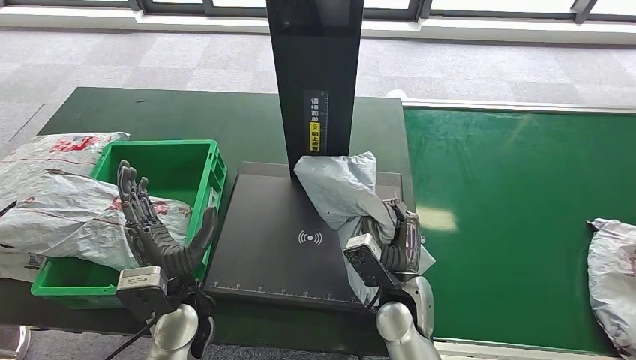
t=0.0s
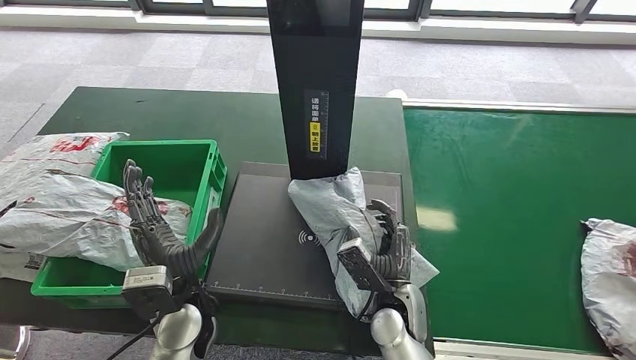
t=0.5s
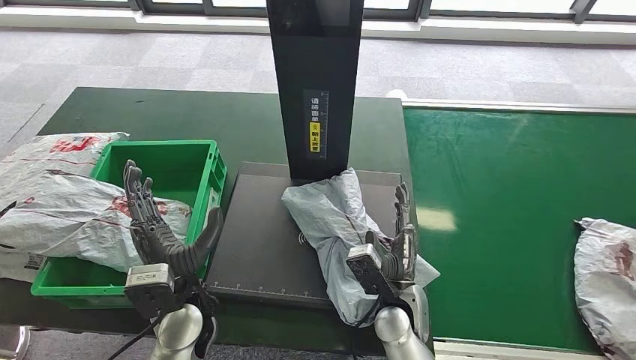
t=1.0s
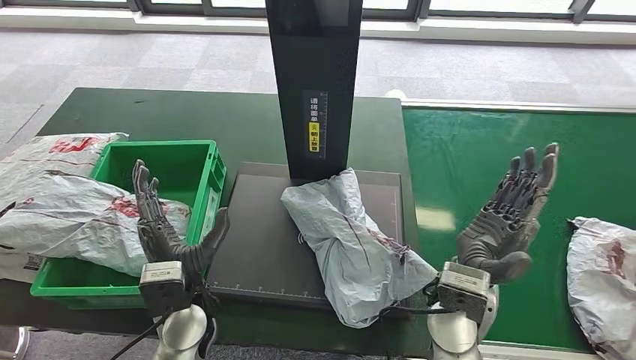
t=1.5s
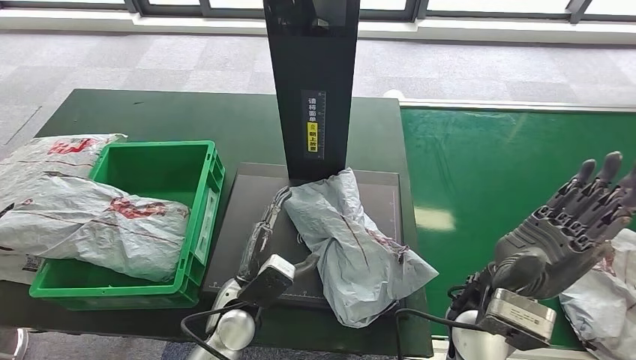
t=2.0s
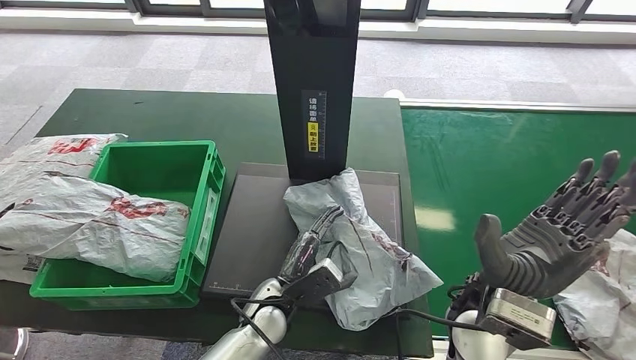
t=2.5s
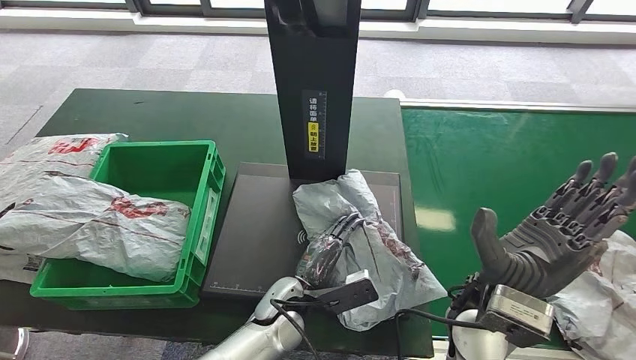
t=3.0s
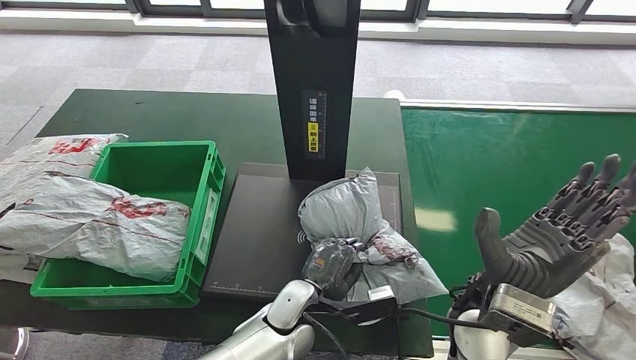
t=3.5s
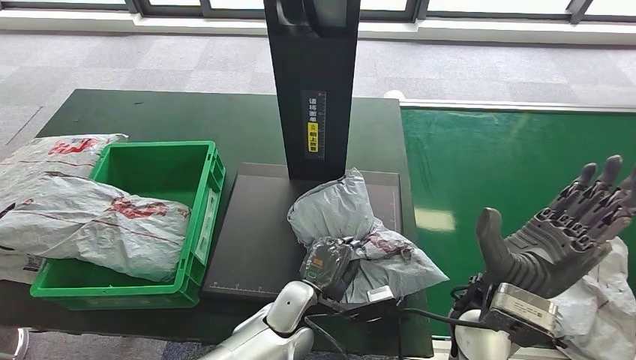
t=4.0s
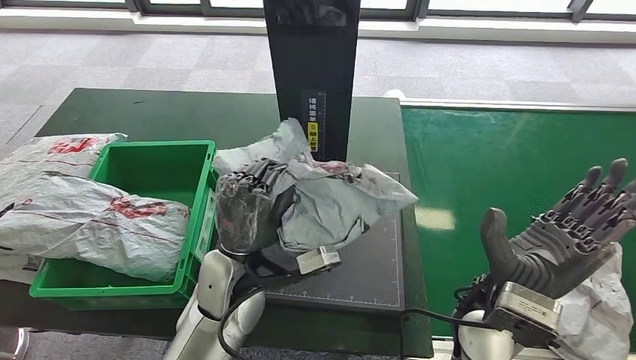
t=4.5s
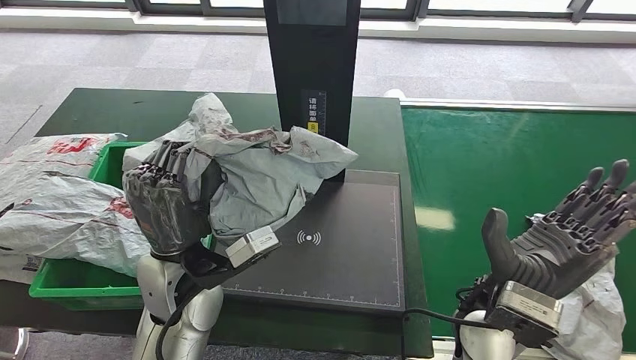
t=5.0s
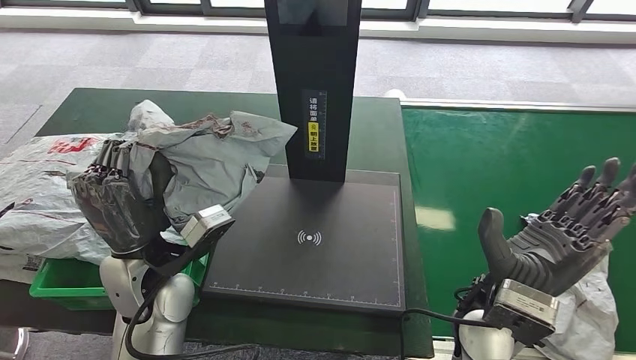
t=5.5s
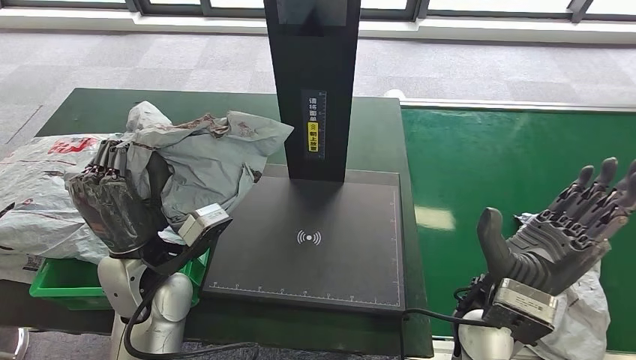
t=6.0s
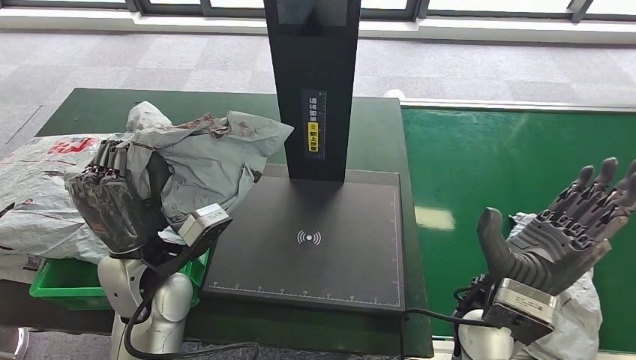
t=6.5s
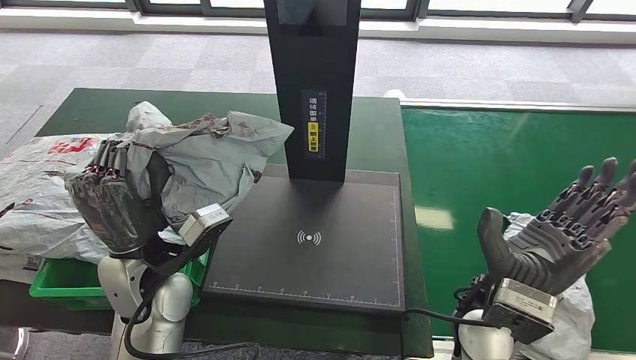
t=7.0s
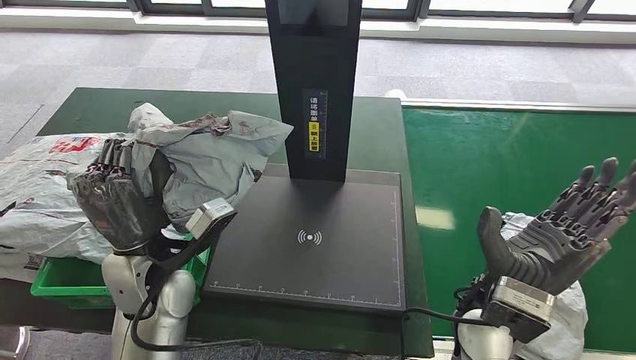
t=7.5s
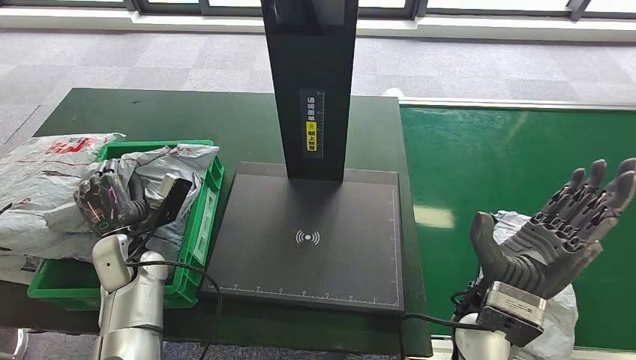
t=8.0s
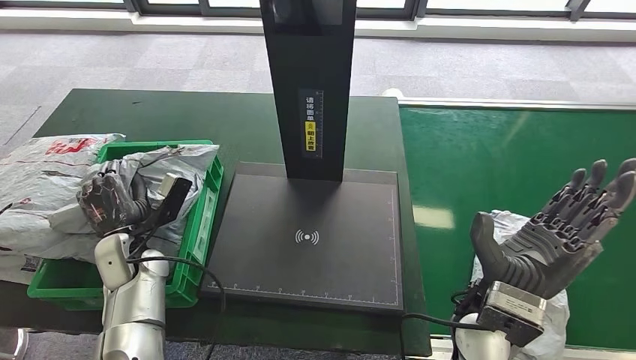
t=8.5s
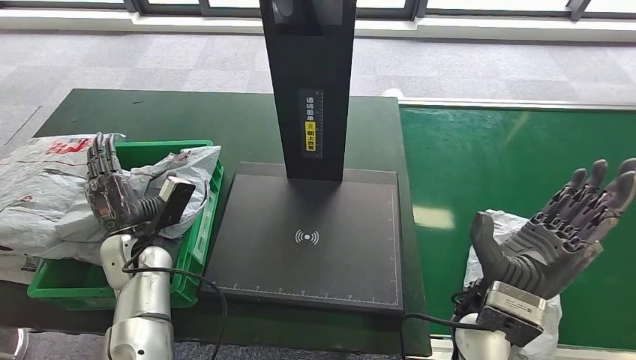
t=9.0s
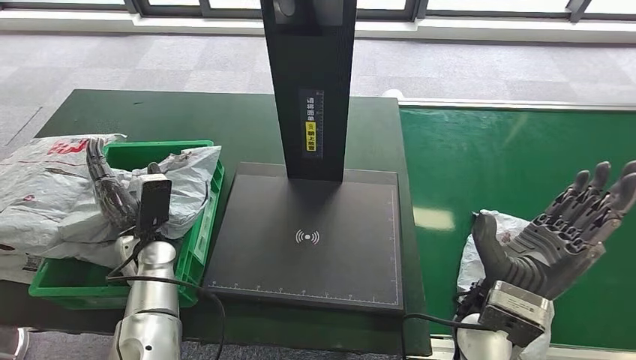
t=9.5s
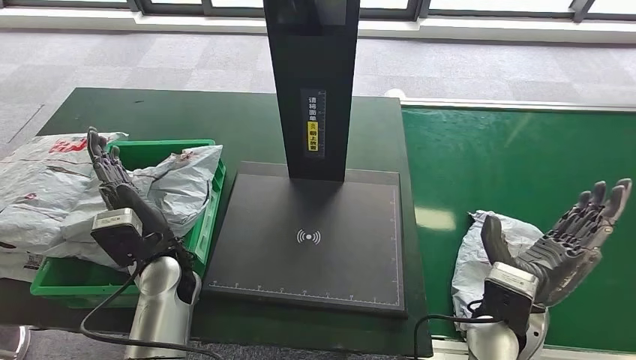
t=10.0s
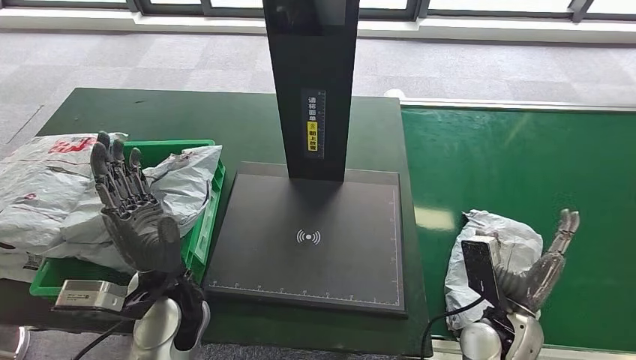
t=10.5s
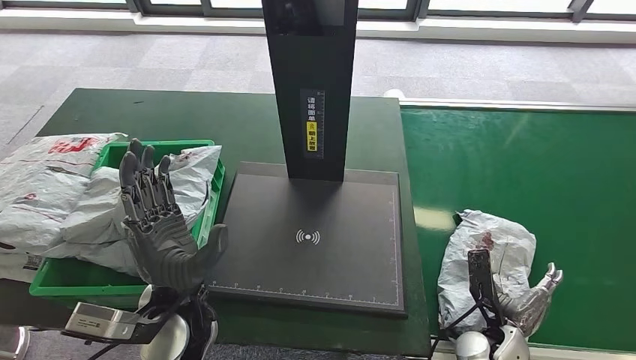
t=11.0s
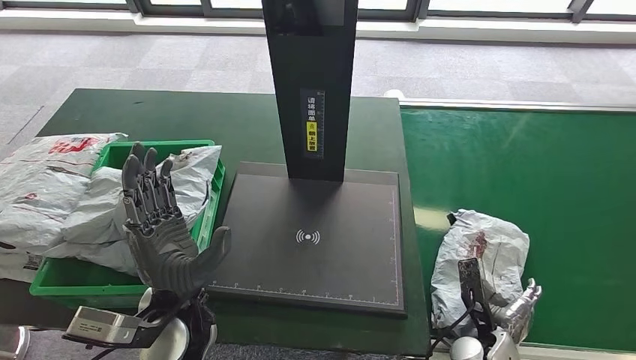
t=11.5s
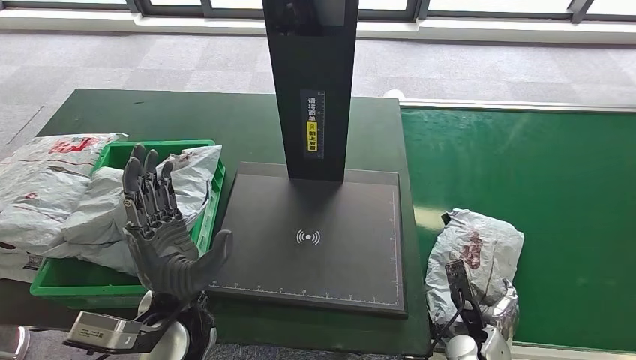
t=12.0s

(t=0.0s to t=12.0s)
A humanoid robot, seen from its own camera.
Step, t=0.0s - t=1.5s: Place the parcel onto the inbound machine.
Step, t=2.5s - t=4.0s: Pick up the parcel from the inbound machine.
Step, t=5.0s - t=9.0s: Place the parcel into the delivery box.
t=2.0s - t=4.0s: The left hand is displaced to the right by about 10 cm.
t=10.0s - t=12.0s: The left hand shifts some 10 cm backward and to the right; the right hand is displaced downward by approximately 20 cm.

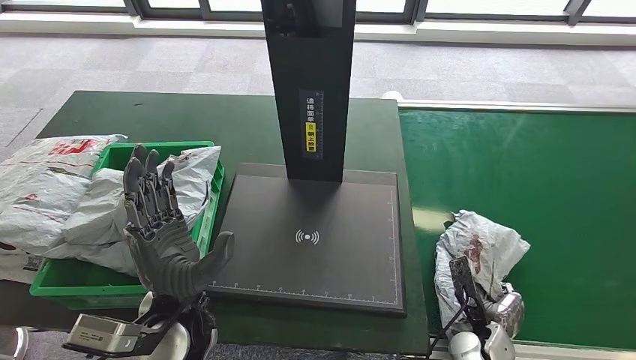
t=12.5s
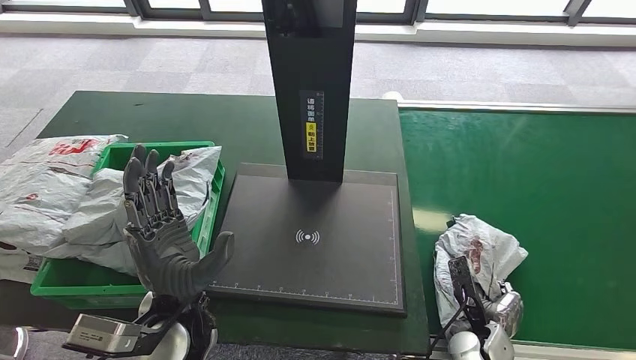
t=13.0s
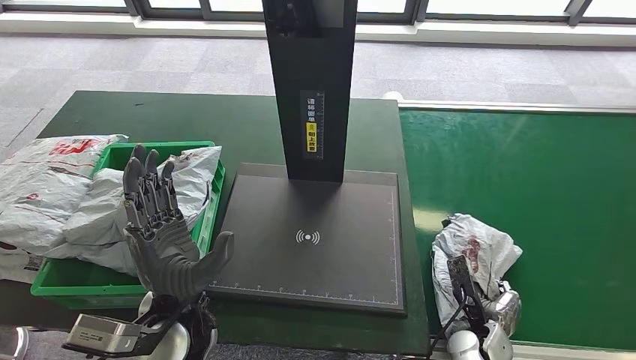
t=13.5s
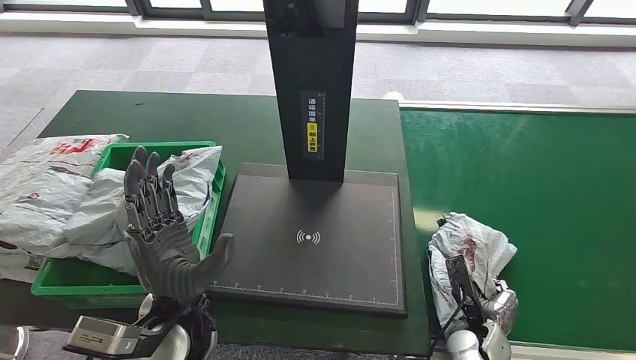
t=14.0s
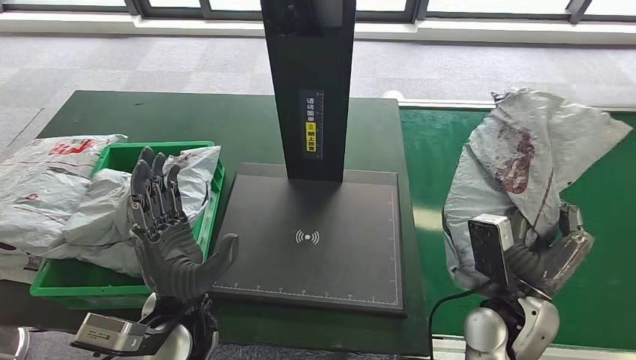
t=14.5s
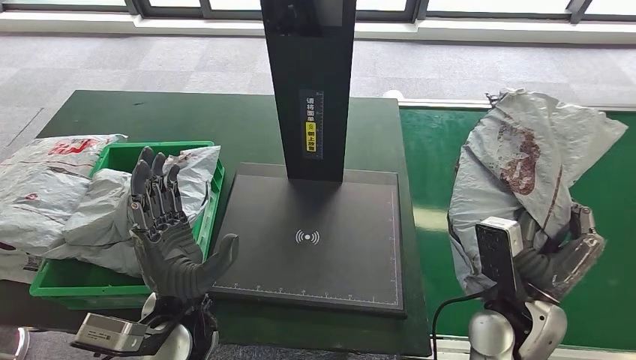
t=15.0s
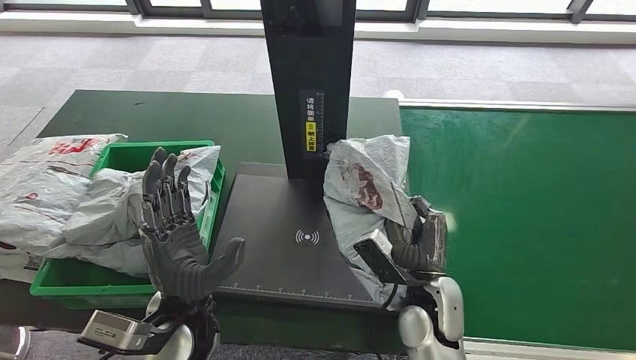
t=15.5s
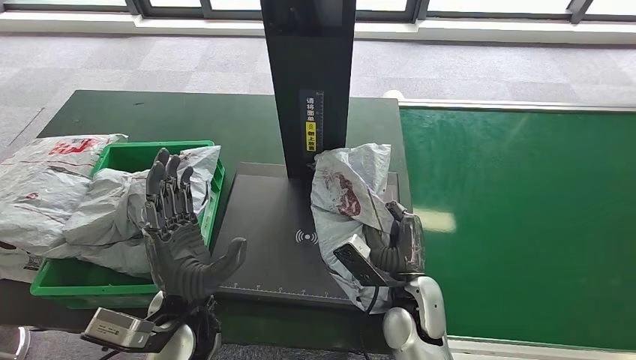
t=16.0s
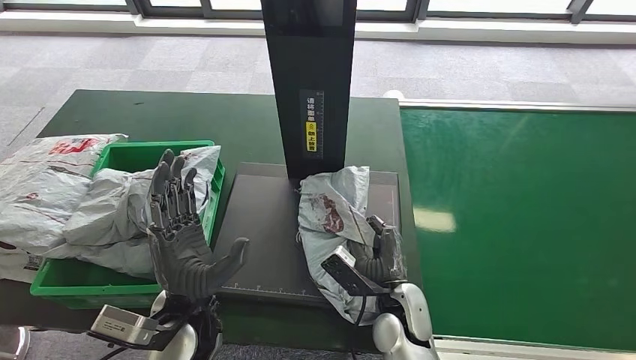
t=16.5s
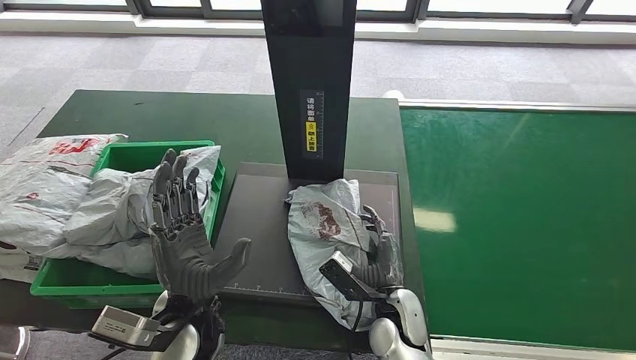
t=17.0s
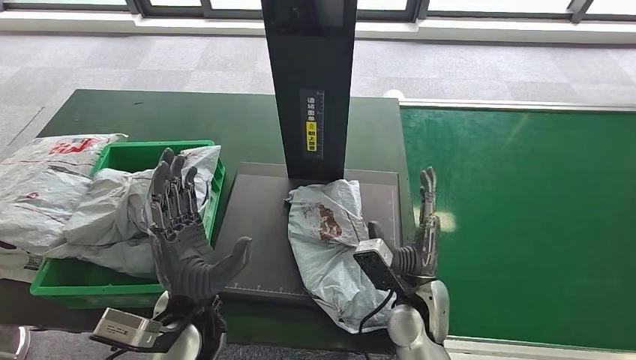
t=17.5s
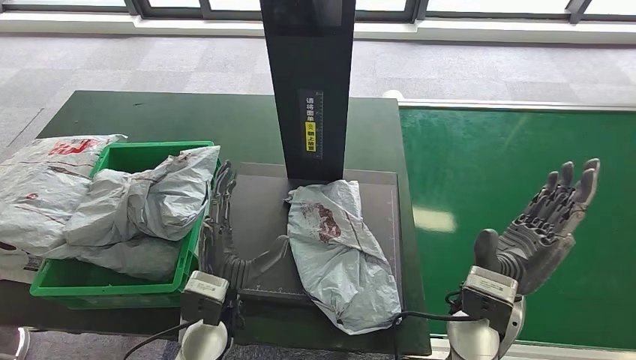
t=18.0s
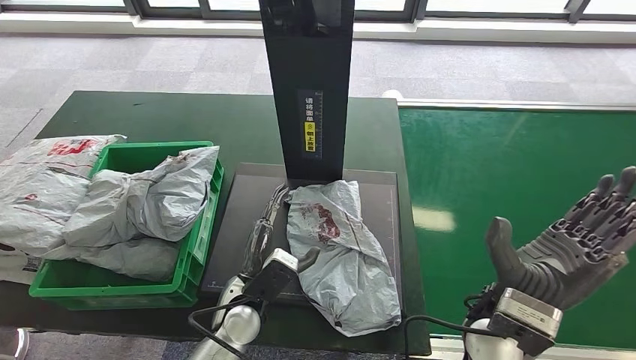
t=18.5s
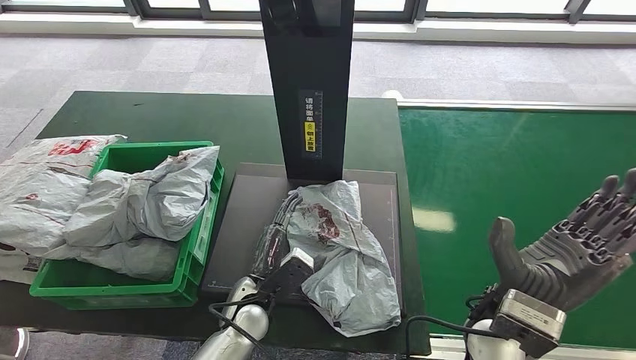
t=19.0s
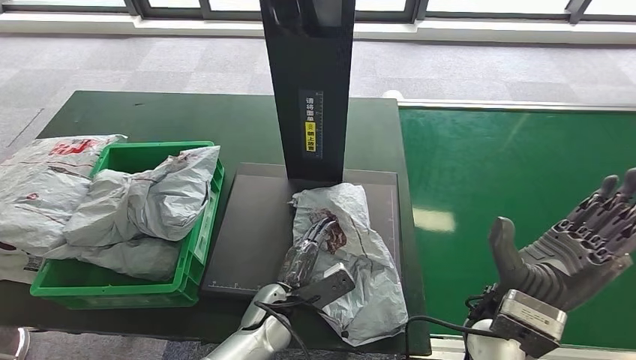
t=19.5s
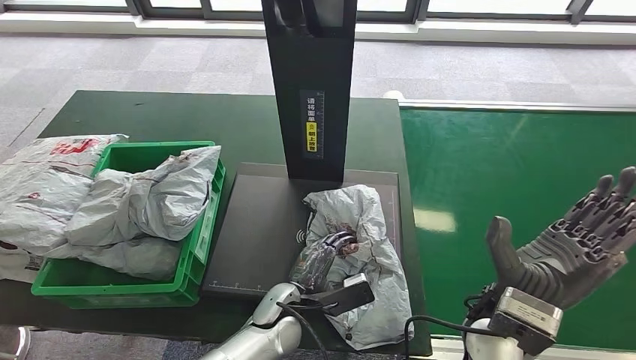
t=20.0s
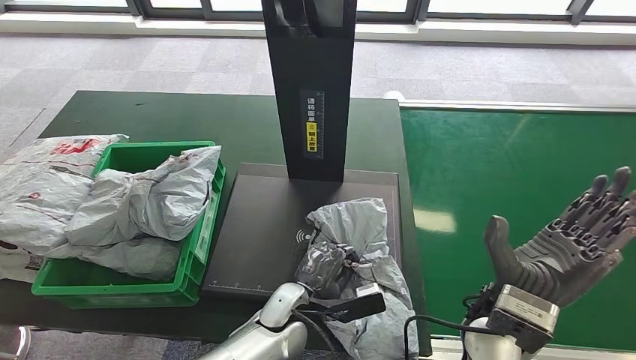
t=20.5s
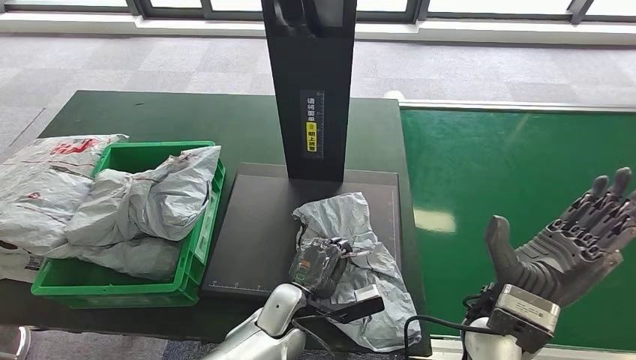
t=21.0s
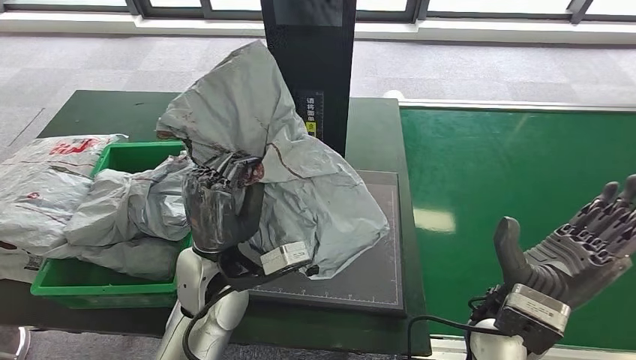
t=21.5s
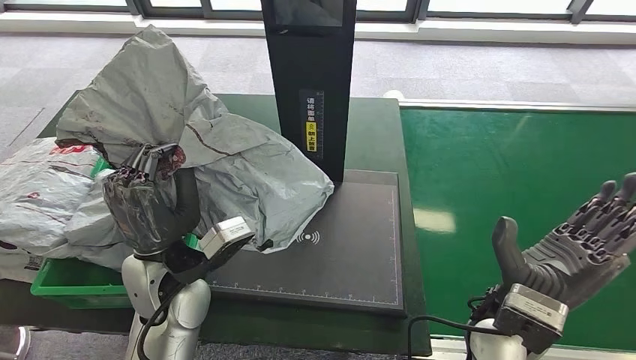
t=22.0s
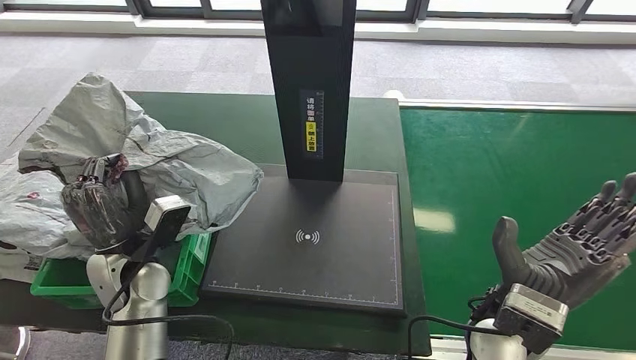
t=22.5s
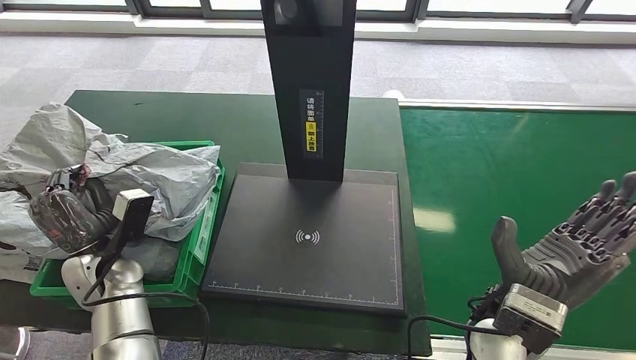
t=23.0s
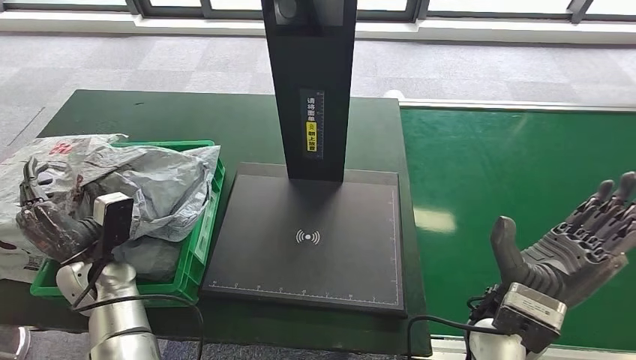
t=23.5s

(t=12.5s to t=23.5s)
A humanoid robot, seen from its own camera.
Step, t=14.5s - t=17.0s: Place the parcel onto the inbound machine.
Step, t=19.0s - t=21.5s: Pick up the parcel from the inbound machine.
Step, t=22.0s - t=23.5s: Place the parcel into the delivery box.
t=12.5s - t=14.5s: The right hand heads upward, covering roughly 15 cm.
t=16.0s - t=18.0s: The right hand shifts some 10 cm upward and to the right.
t=18.0s - t=20.0s: The left hand shifts about 15 cm to the right and downward.
